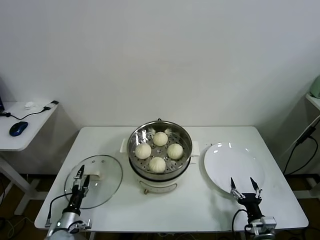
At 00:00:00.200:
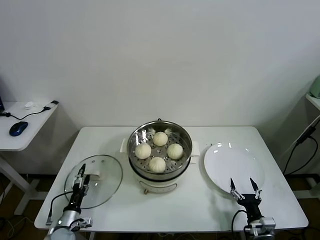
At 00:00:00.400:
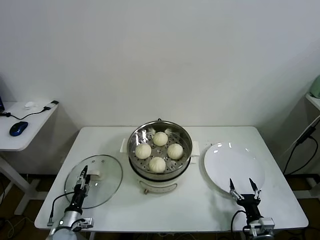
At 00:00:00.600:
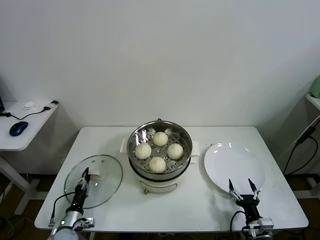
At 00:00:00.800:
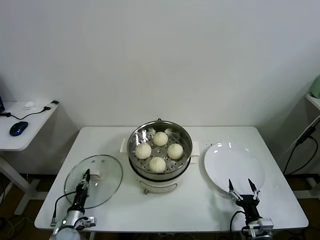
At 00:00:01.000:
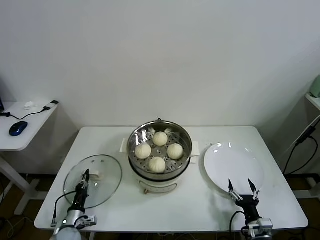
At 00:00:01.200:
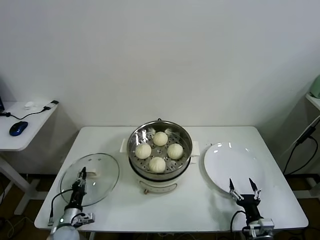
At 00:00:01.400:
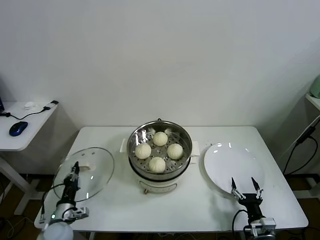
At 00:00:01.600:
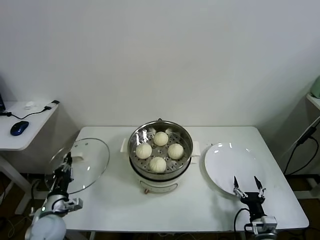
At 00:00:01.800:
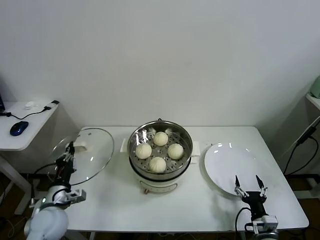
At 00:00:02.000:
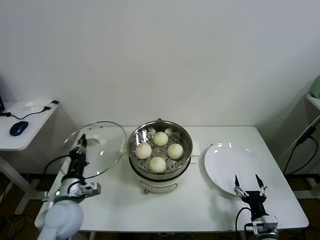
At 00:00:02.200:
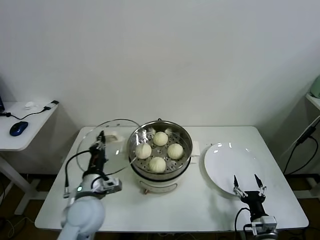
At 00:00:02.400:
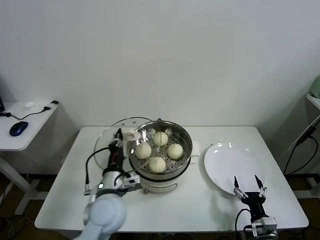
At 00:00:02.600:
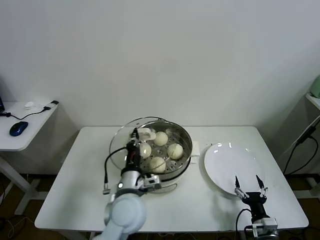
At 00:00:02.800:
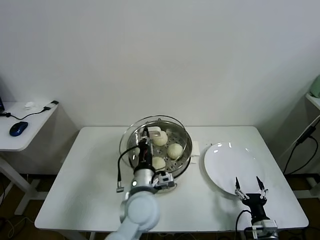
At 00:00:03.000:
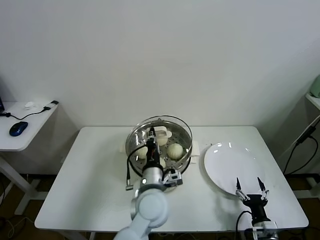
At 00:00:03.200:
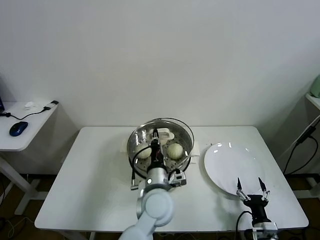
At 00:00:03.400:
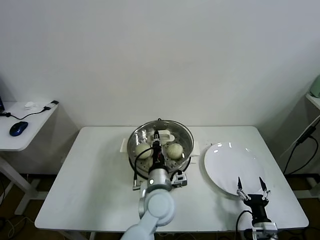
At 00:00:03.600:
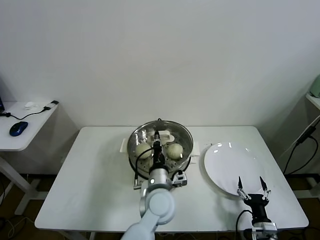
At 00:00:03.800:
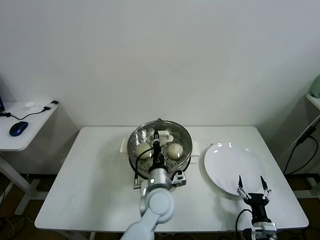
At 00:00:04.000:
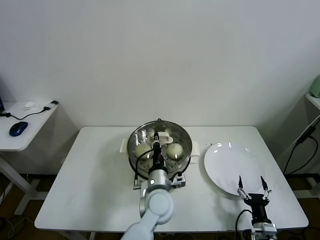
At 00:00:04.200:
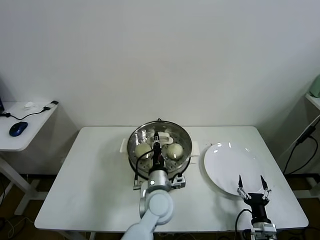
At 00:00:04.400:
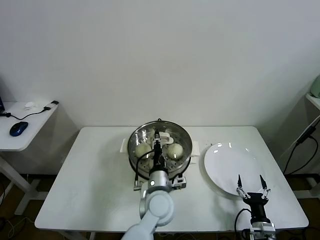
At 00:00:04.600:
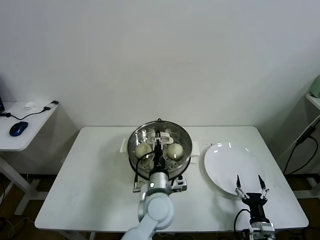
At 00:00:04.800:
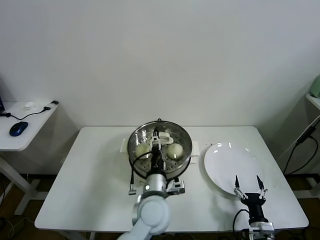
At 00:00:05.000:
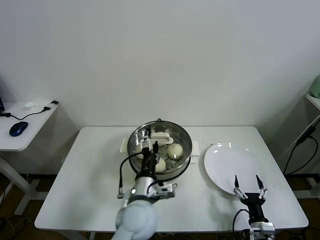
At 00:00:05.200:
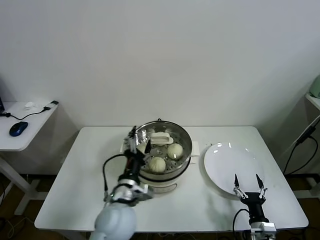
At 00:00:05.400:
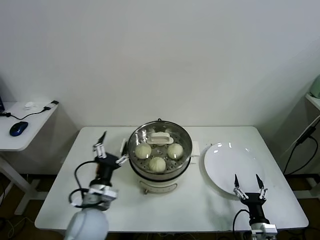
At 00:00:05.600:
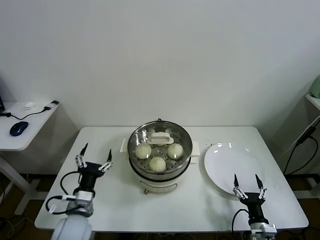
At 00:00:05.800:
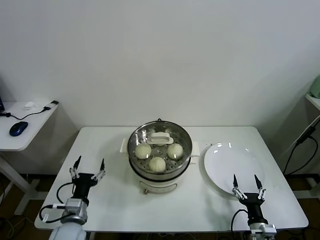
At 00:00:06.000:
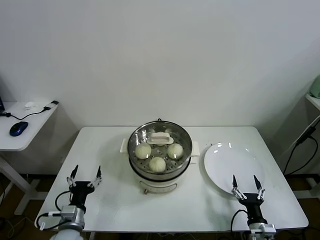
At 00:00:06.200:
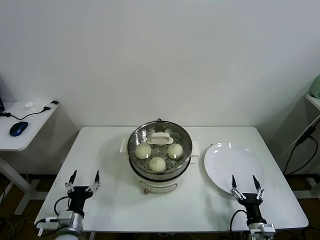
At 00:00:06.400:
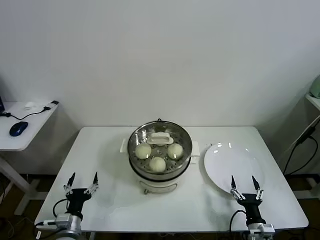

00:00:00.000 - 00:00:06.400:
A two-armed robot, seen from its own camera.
Task of the whole recording: take steamed baozi put them in steamer.
Step, 00:00:01.000 - 00:00:04.800: Place the pot lid on the steamer with left gripper.
00:00:00.000 - 00:00:01.600: The left gripper moves upward, approximately 10 cm, and closes up.
00:00:01.600 - 00:00:03.200: The left gripper goes roughly 35 cm to the right.
00:00:03.200 - 00:00:04.800: The left gripper opens up.
00:00:04.800 - 00:00:06.400: The left gripper heads to the left and downward, covering about 30 cm.
